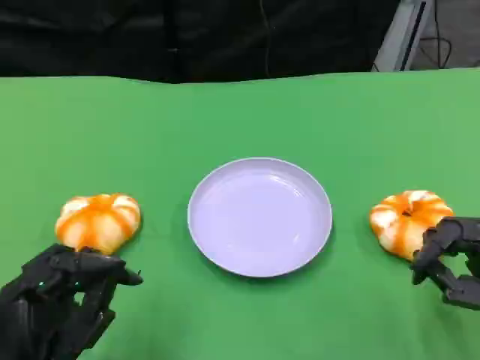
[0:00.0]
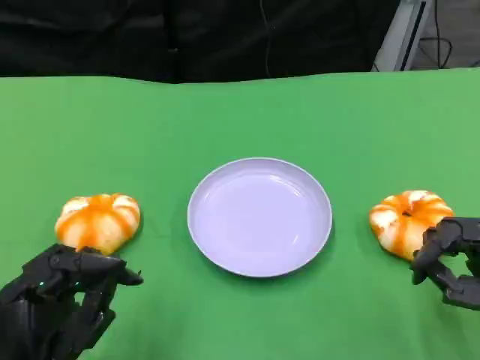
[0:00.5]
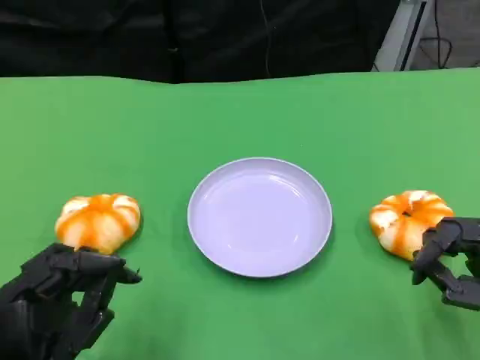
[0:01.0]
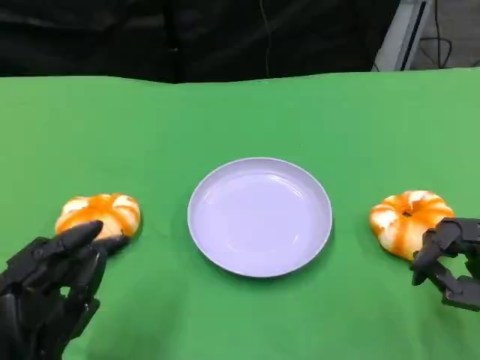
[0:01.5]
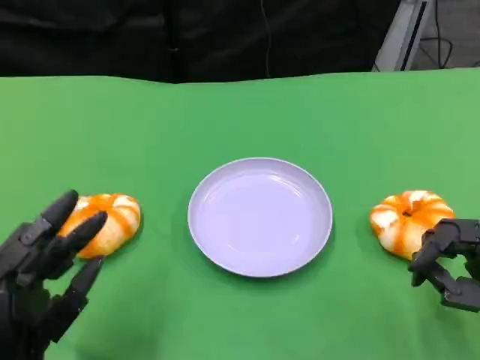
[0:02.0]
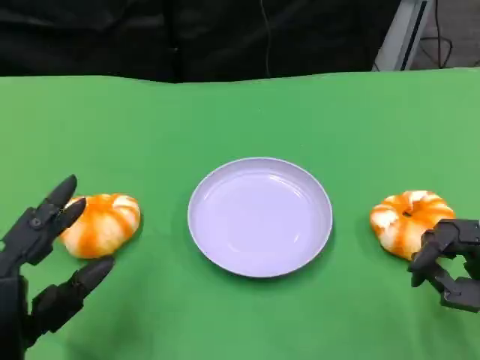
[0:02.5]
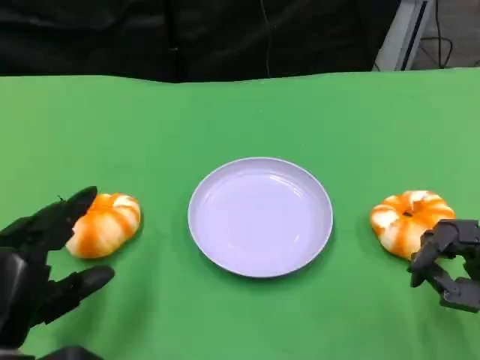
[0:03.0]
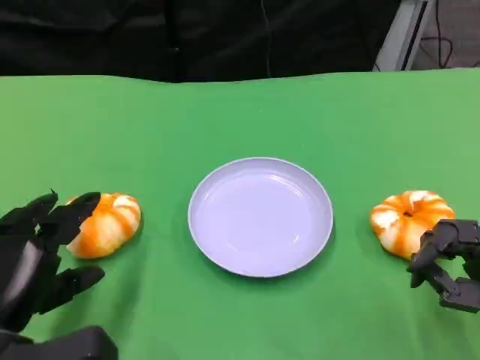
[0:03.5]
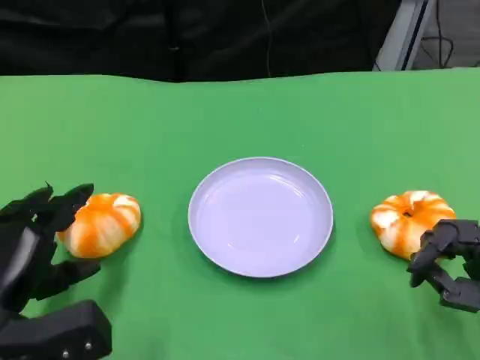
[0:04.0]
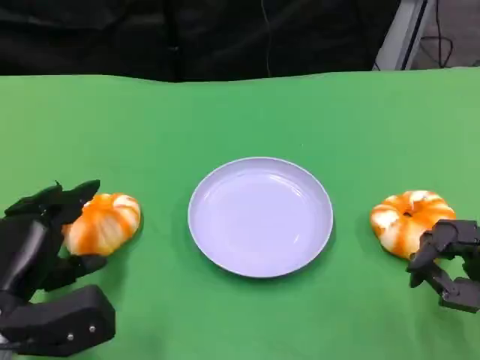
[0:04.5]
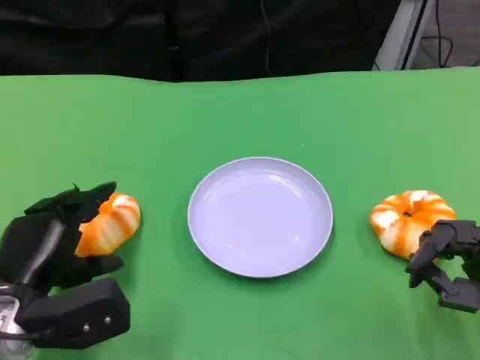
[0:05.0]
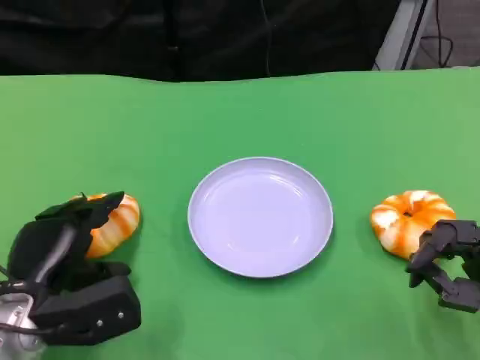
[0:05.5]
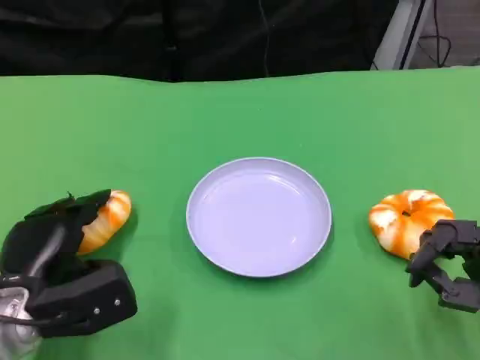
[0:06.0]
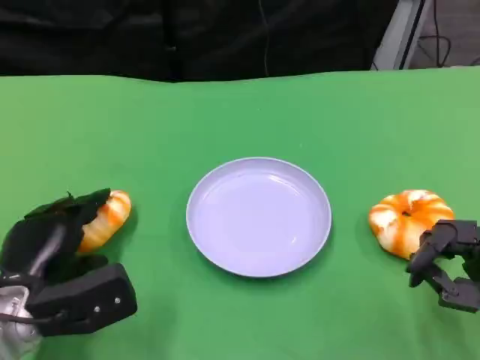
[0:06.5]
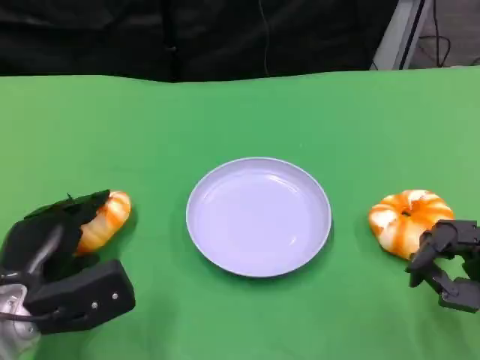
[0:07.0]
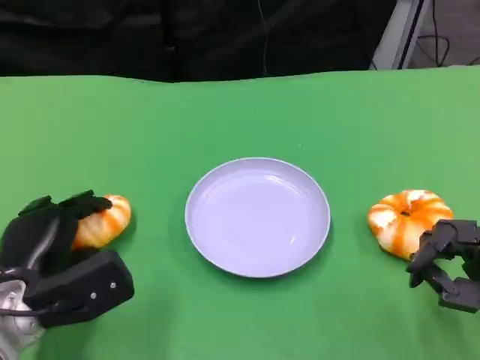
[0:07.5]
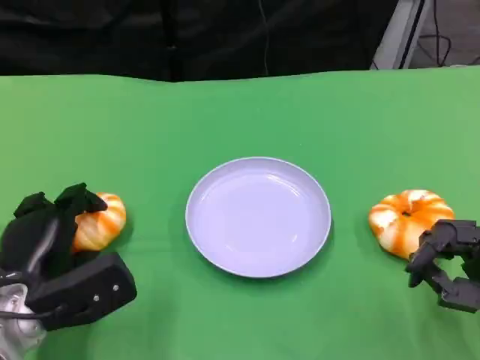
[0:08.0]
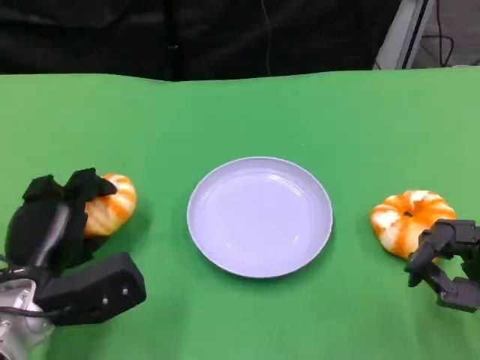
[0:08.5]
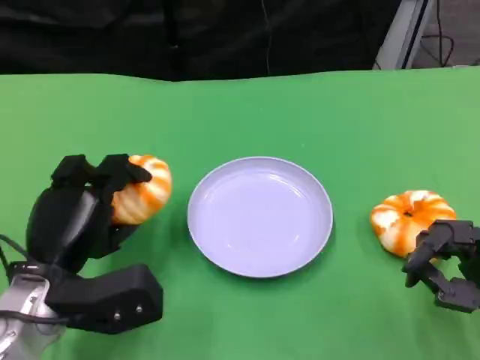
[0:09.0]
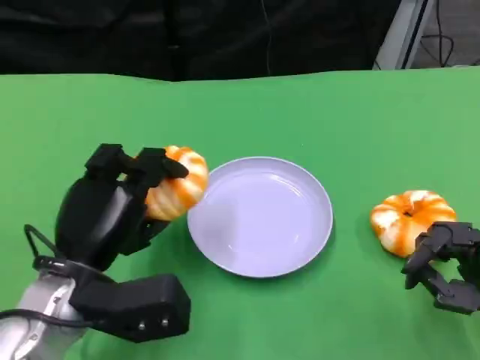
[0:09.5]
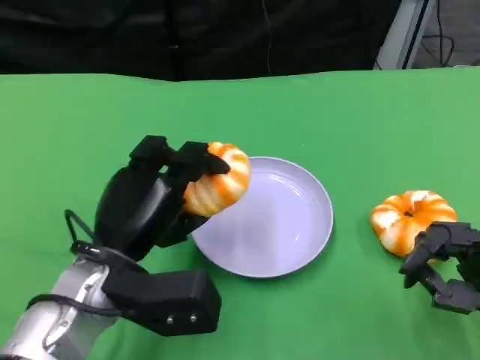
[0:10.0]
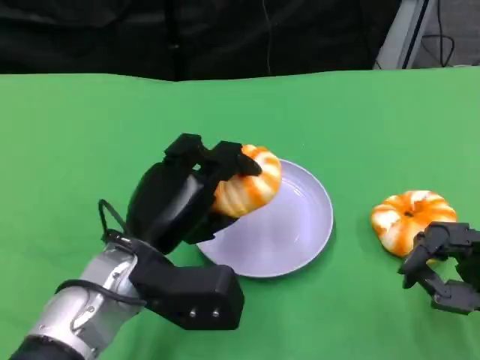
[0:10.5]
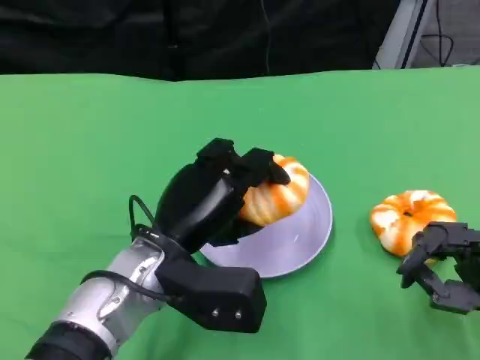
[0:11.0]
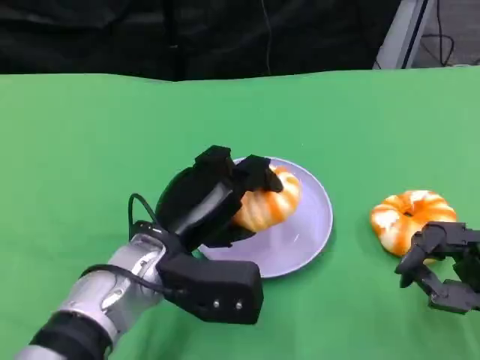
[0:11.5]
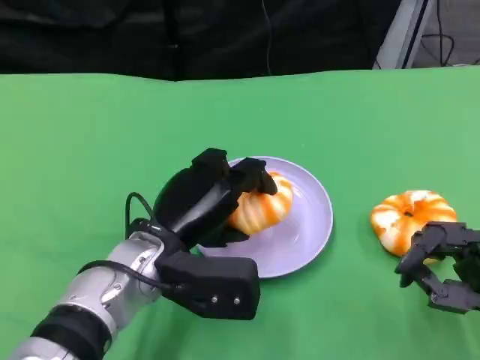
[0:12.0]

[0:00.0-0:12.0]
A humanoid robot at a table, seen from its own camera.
Task of the whole recording: Grasp the bread from the table and place it into the plate.
0:00.0 to 0:02.0: There are only small adjustments of the hands.
0:02.0 to 0:04.0: The left hand heads forward, covering roughly 5 cm.
0:04.0 to 0:08.0: The hands move only a little.
0:08.0 to 0:10.0: The left hand goes roughly 10 cm to the right and upward.

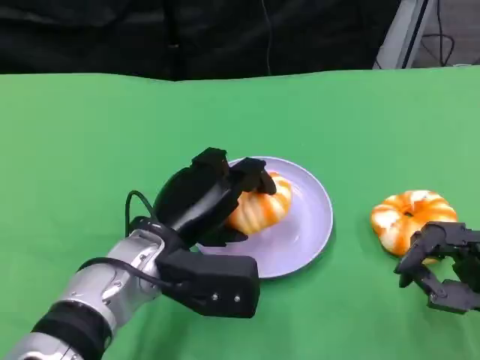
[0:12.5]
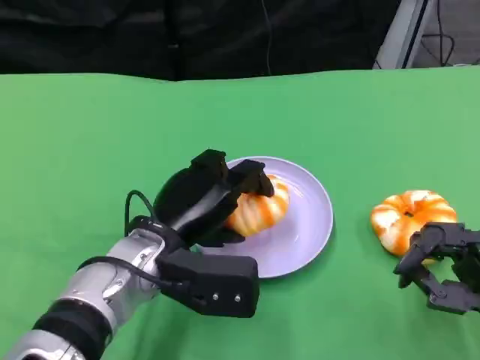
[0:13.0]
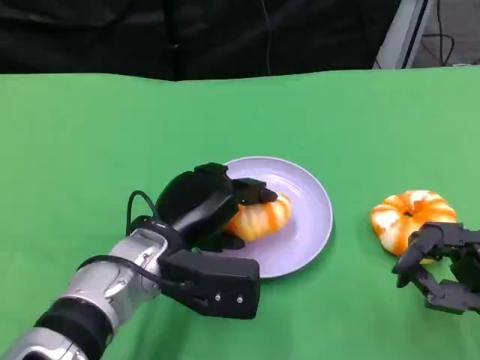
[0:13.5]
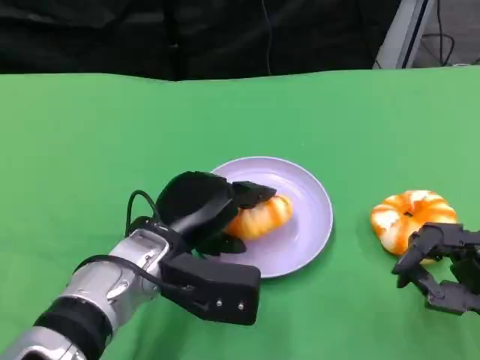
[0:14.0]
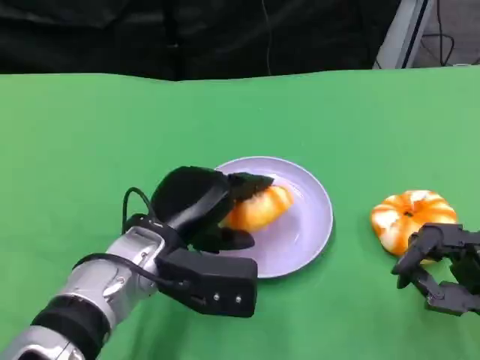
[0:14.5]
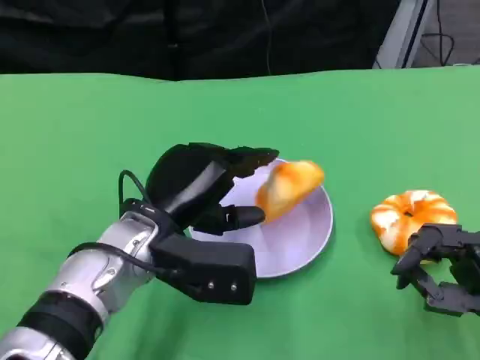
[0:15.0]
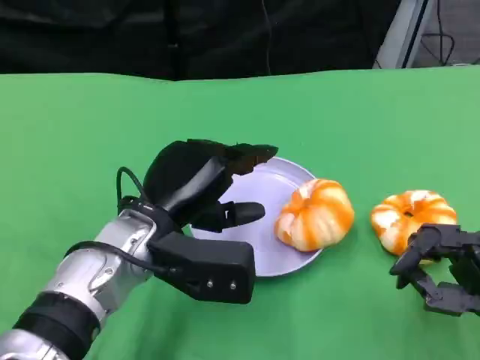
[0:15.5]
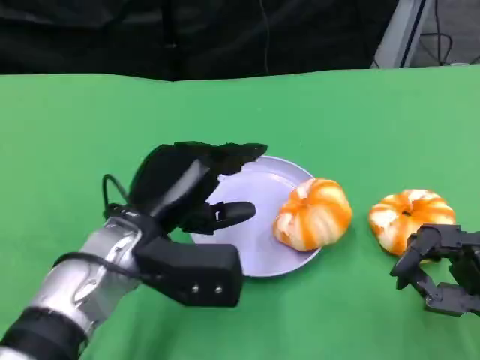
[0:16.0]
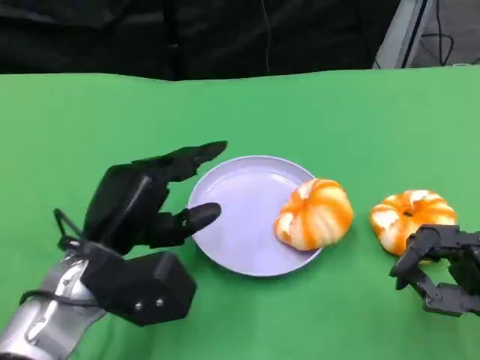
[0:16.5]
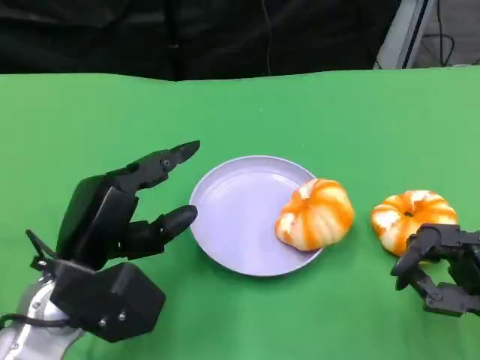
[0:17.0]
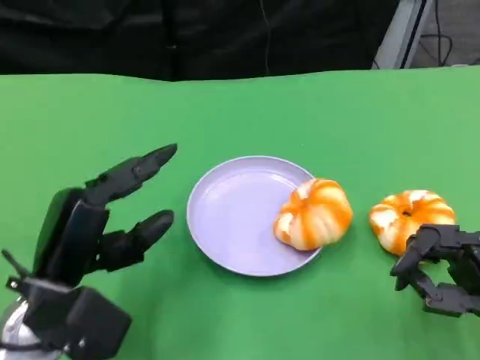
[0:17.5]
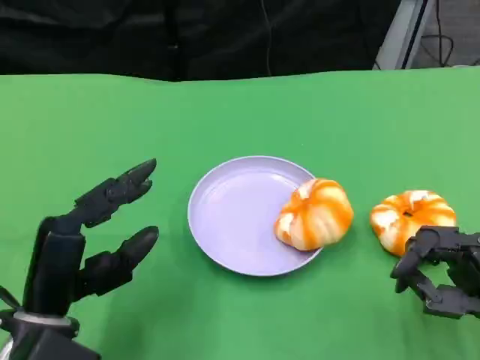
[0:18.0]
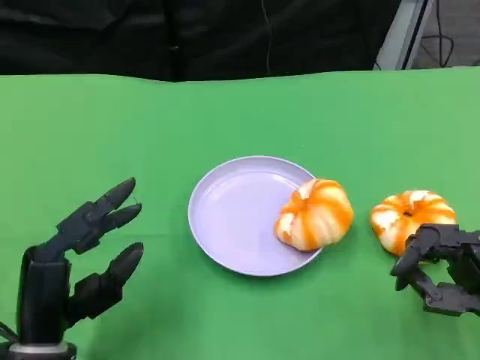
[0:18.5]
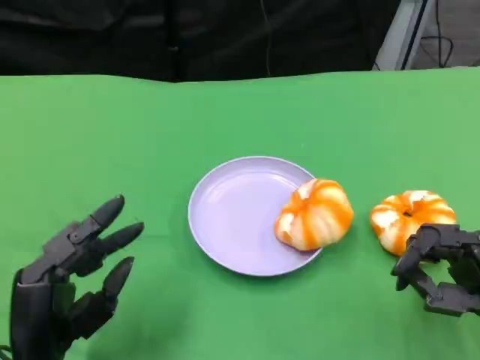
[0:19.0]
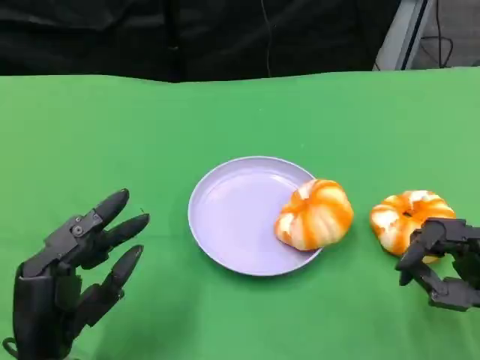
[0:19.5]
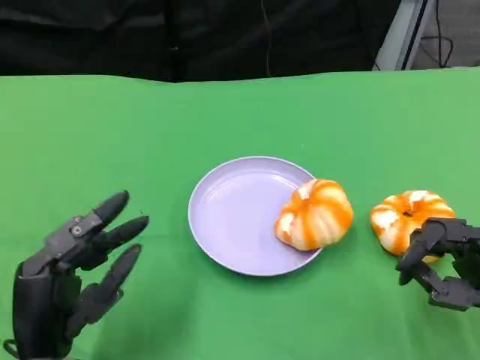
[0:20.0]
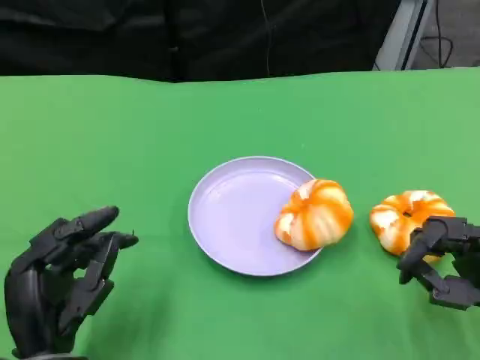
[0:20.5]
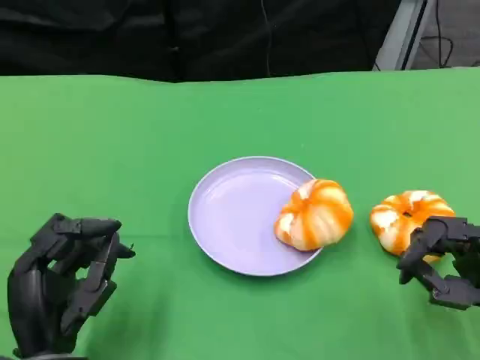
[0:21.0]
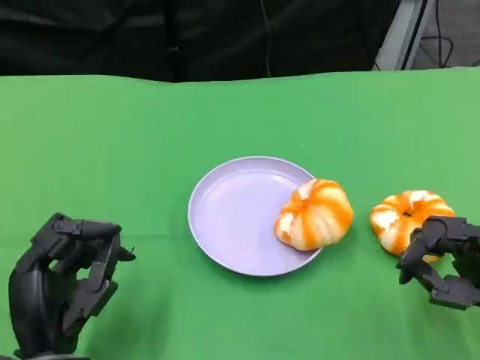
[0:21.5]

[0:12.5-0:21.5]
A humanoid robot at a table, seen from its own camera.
Task of the whole recording: Grasp the bread from the table and place it into the plate.
0:12.5 to 0:14.5: The hands make only small movements.
0:14.5 to 0:17.0: The left hand goes some 5 cm to the left.
0:17.0 to 0:19.5: The left hand shifts about 5 cm backward.
0:19.5 to 0:21.5: There are only small adjustments of the hands.

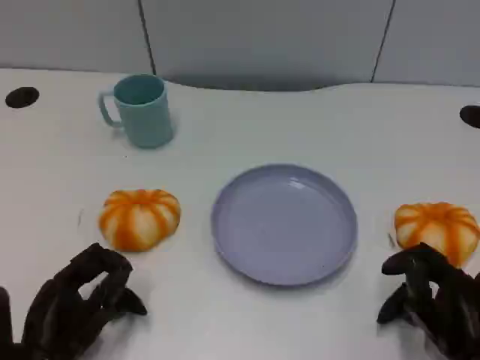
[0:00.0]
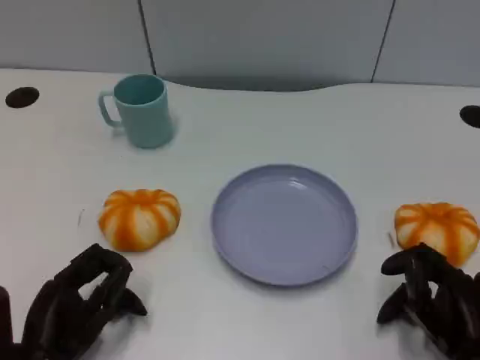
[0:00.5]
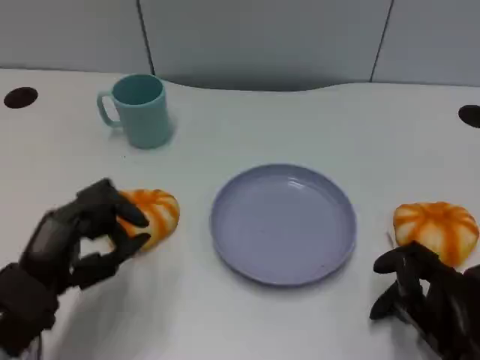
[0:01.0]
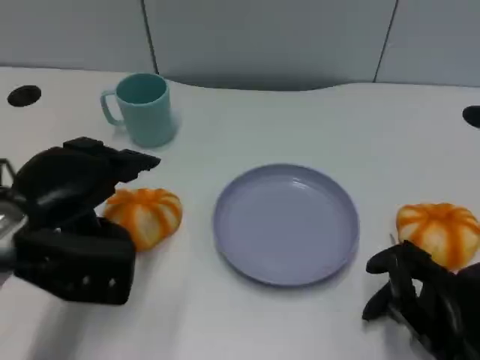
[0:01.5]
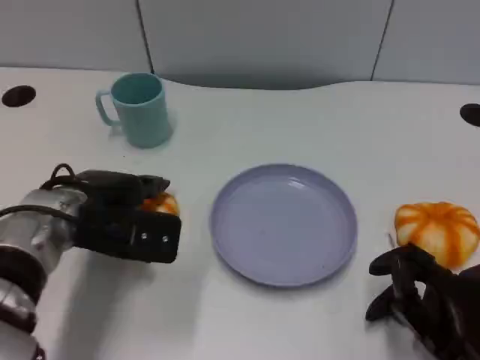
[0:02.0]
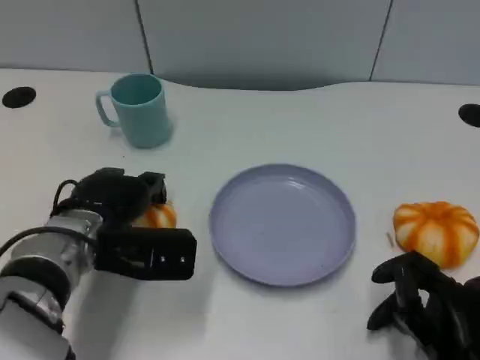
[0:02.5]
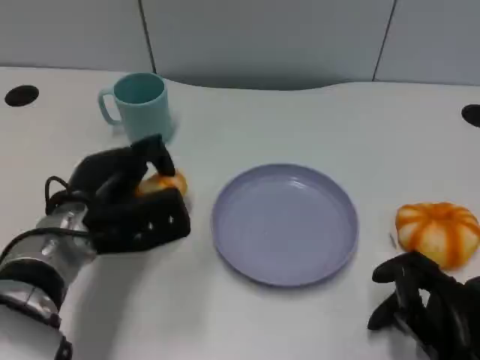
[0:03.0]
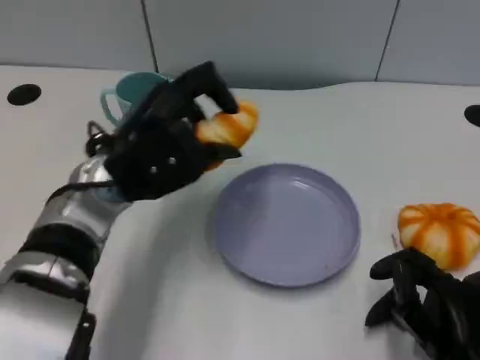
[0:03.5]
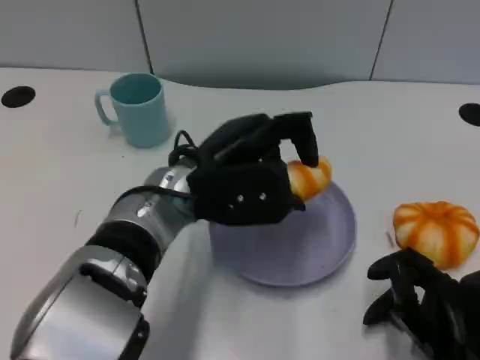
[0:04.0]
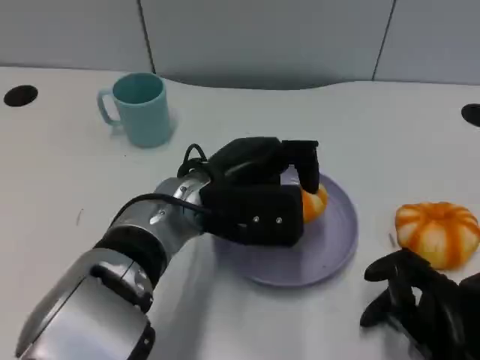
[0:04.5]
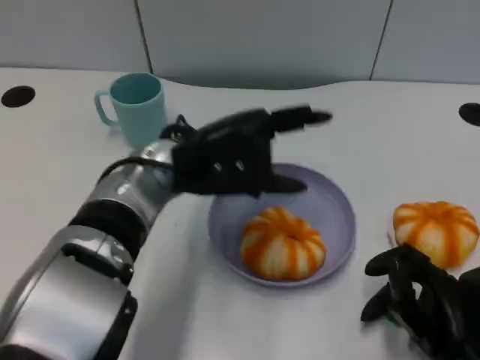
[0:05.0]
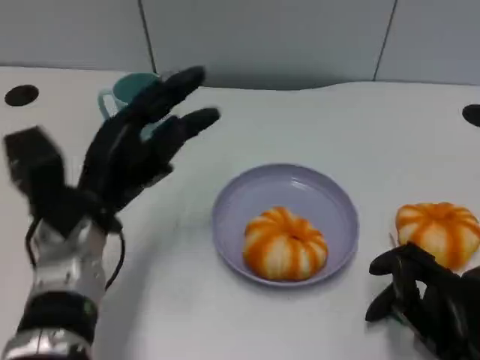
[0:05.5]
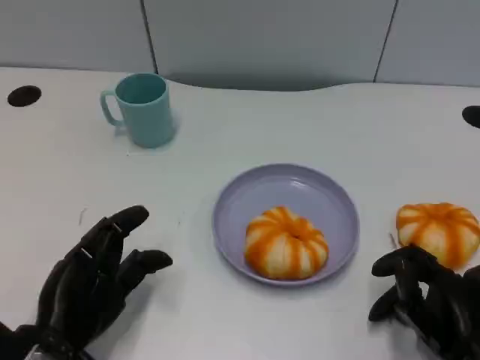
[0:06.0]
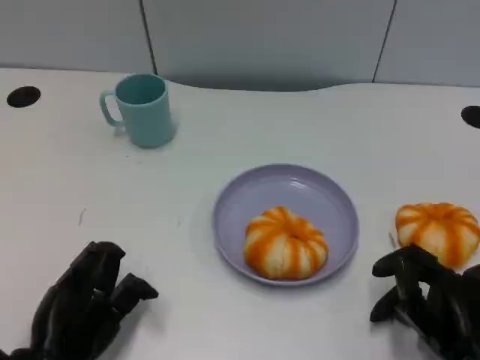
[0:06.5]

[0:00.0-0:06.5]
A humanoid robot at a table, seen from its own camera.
Task of the whole recording: Grasp the bread from the table and place it into the plate.
0:00.0 to 0:02.0: The left hand heads forward and upward, covering approximately 15 cm.
0:02.0 to 0:04.5: The left hand is displaced to the right by approximately 10 cm.
0:04.5 to 0:06.5: The left hand goes about 25 cm to the left, backward and downward.
